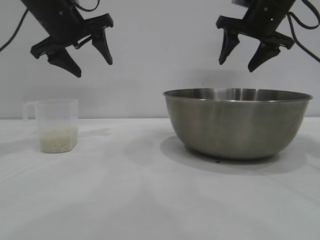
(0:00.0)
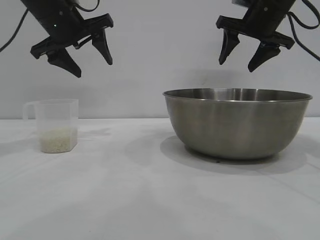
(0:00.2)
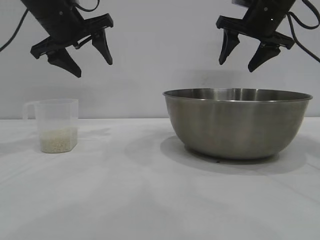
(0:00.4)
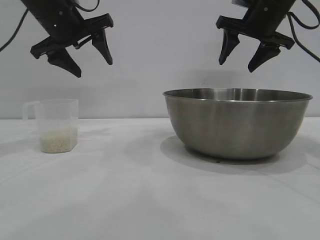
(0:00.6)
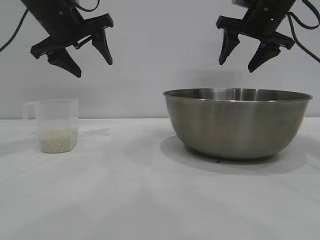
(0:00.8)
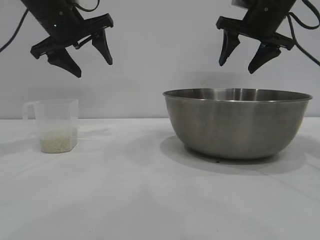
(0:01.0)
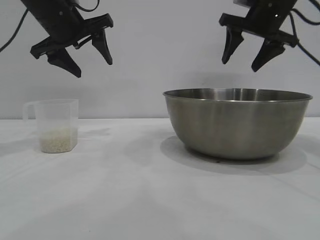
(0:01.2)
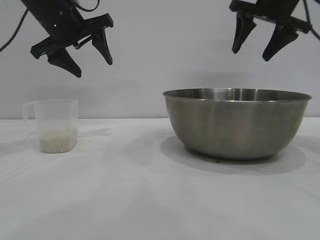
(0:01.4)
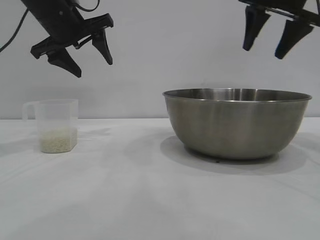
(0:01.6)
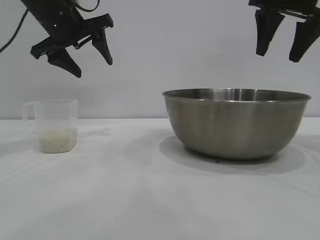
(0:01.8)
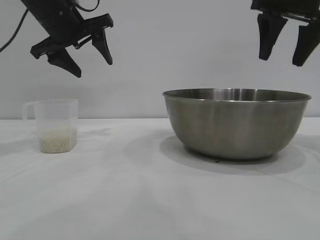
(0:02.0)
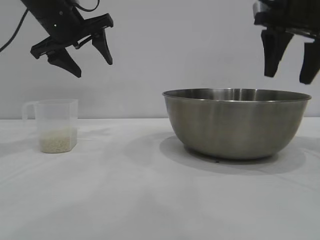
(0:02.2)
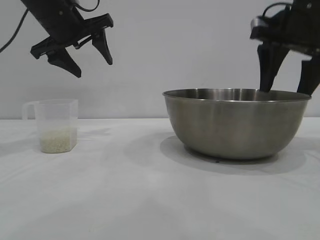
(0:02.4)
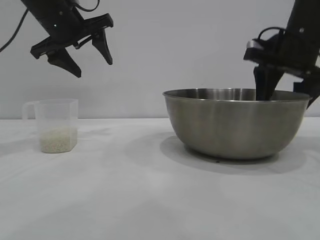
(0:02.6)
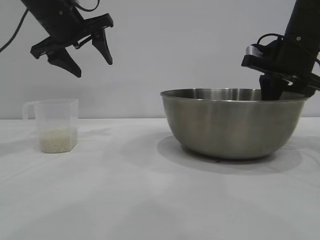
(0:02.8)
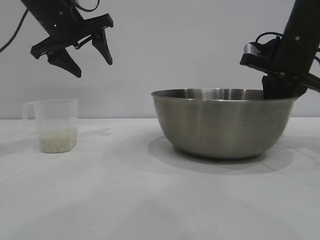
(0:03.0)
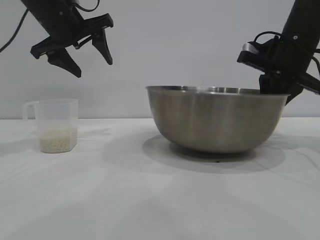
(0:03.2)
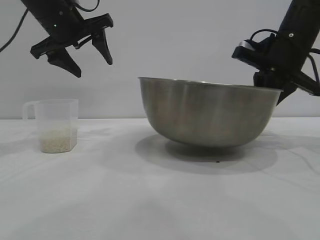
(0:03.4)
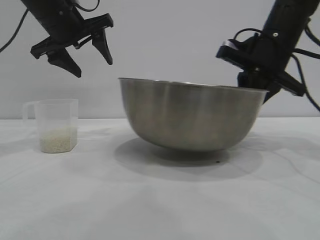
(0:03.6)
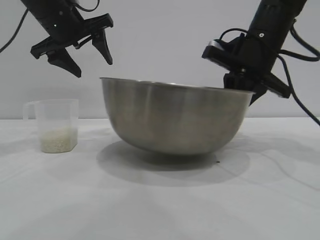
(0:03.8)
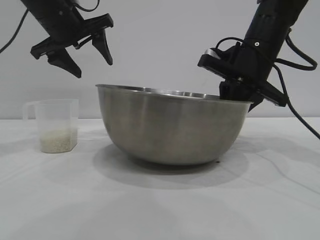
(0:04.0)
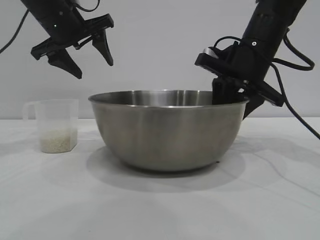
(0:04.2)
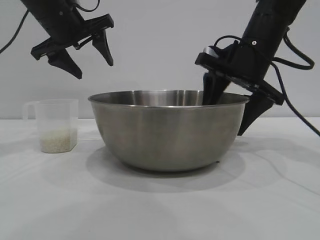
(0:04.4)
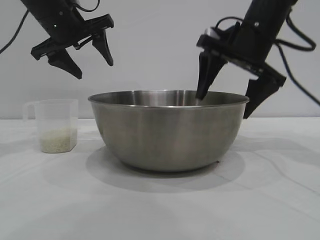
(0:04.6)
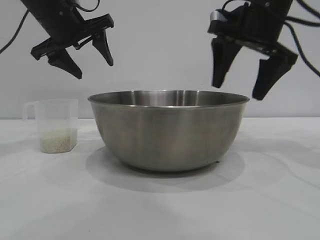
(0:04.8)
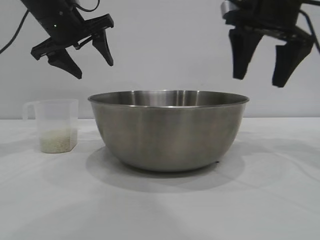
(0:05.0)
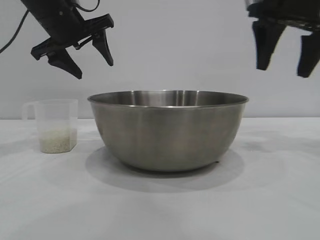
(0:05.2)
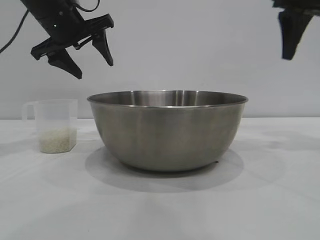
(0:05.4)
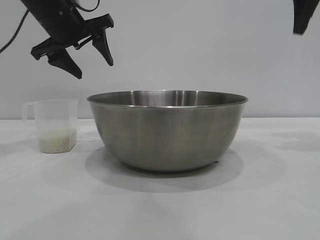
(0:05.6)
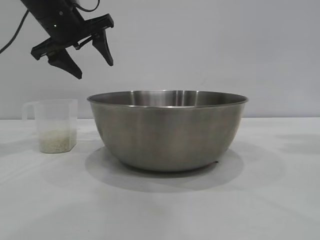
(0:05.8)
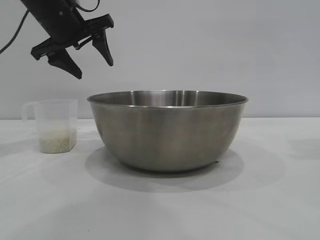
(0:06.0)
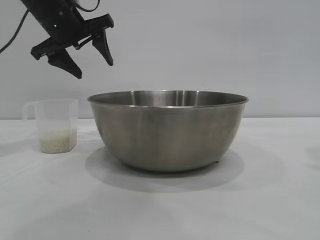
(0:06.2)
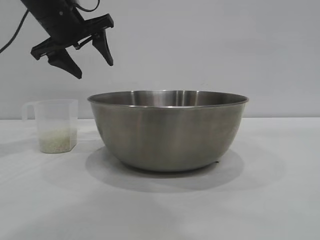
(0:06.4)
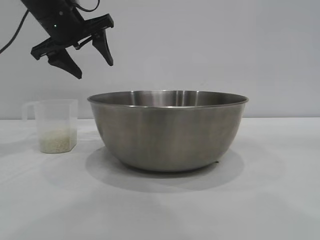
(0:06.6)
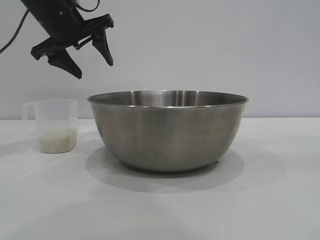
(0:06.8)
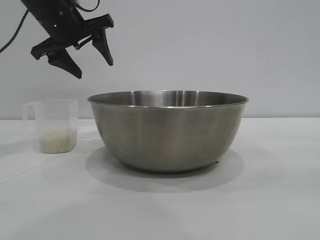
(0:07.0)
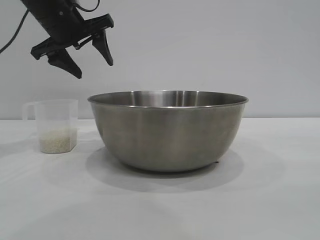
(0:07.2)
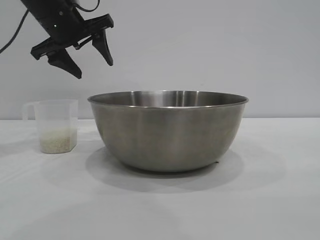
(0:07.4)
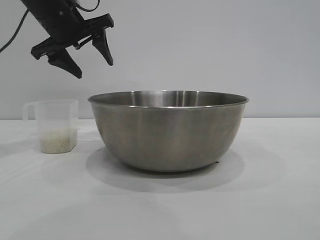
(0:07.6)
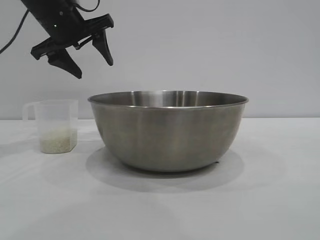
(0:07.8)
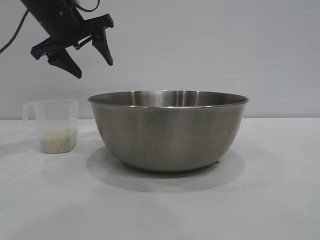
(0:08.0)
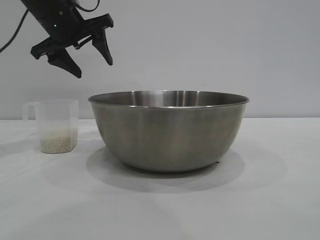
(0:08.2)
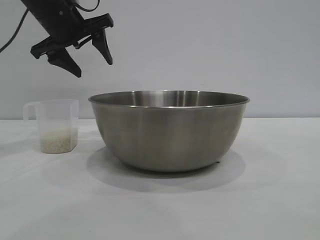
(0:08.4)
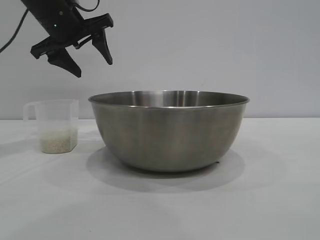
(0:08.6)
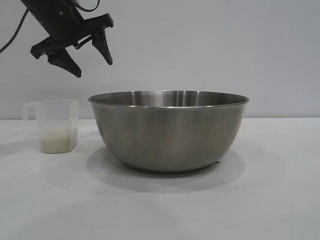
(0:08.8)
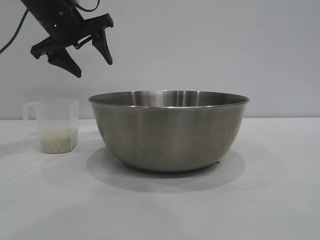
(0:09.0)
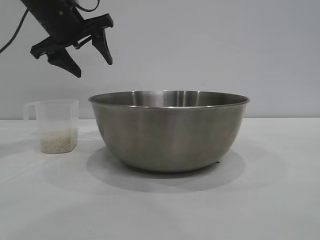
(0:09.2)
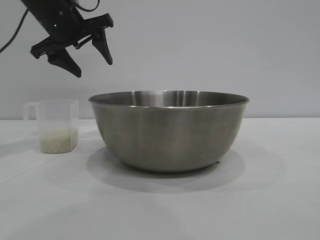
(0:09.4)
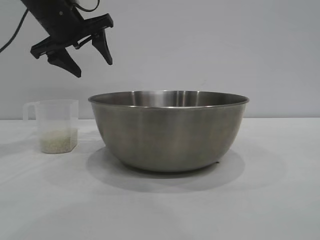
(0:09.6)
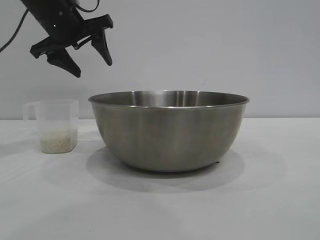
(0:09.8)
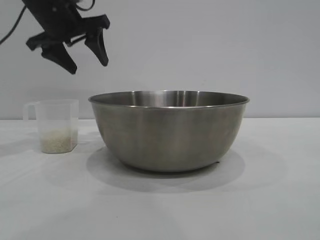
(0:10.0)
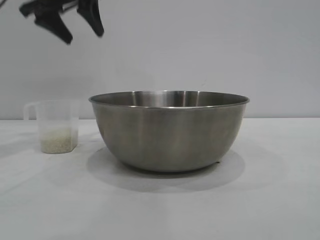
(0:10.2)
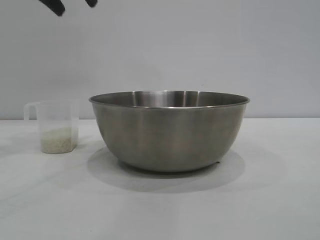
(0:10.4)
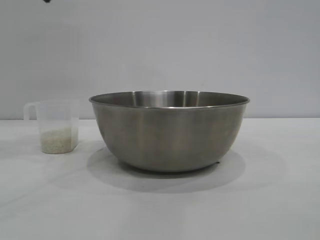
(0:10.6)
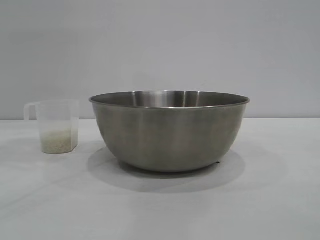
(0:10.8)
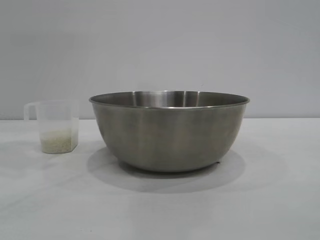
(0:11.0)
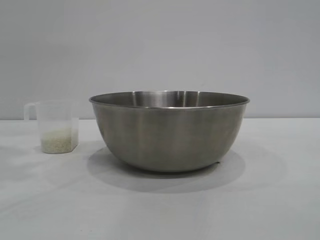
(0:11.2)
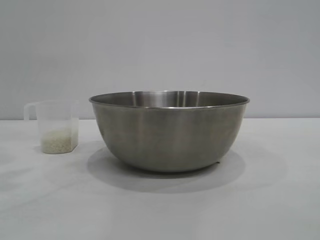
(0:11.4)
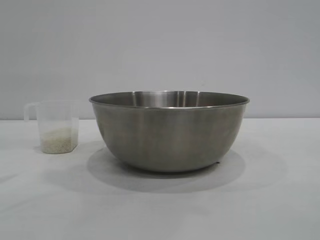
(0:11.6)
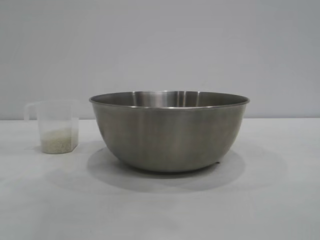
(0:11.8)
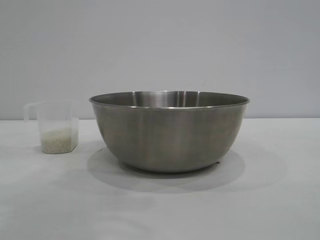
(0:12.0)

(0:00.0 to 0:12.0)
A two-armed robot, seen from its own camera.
Task of the whole recording: the right gripper grasp the rice container and place it in the center of the table, the left gripper grasp the rice scoop and pour the rice into the rice container.
Step, 0:00.0 - 0:04.8: Move the bowl to the center of view with the right gripper.

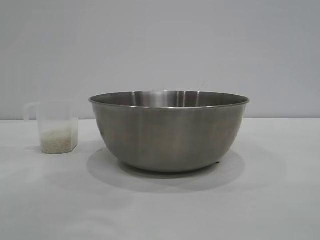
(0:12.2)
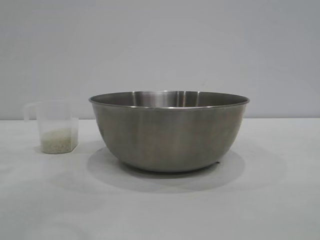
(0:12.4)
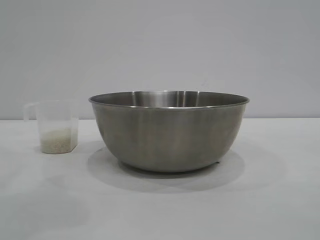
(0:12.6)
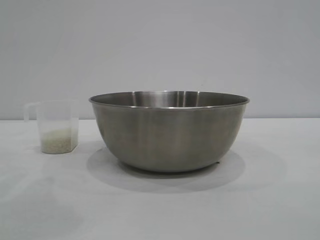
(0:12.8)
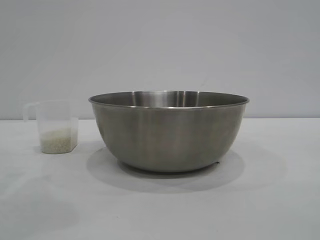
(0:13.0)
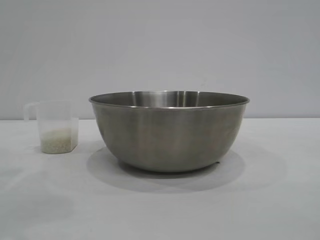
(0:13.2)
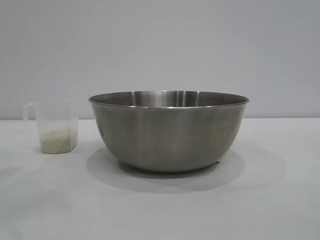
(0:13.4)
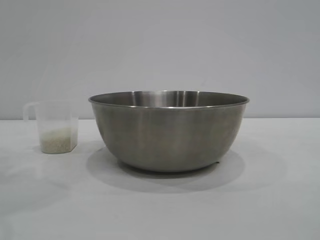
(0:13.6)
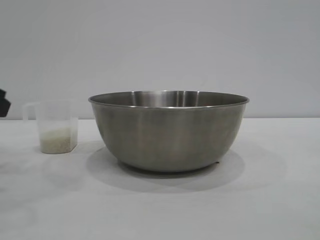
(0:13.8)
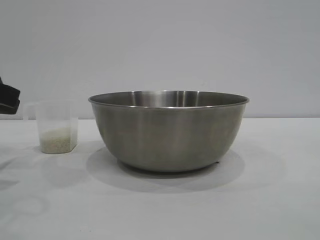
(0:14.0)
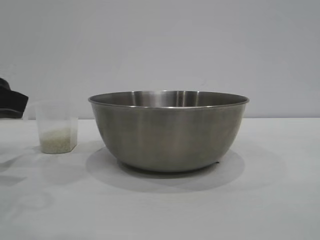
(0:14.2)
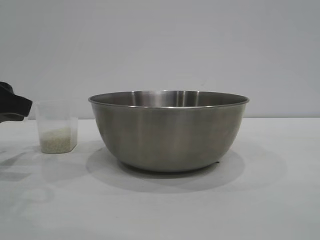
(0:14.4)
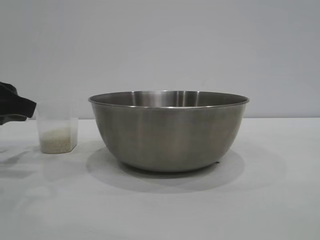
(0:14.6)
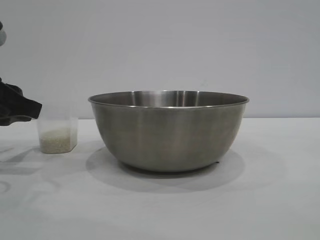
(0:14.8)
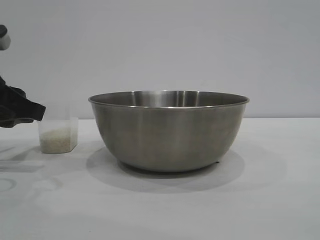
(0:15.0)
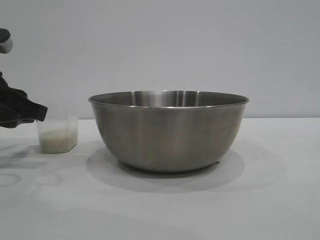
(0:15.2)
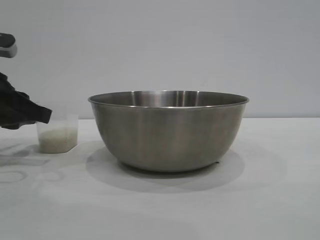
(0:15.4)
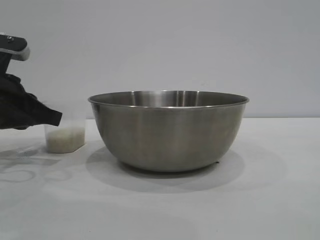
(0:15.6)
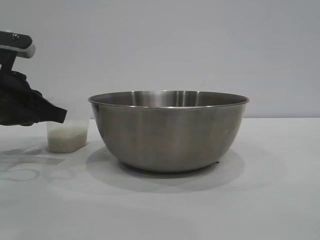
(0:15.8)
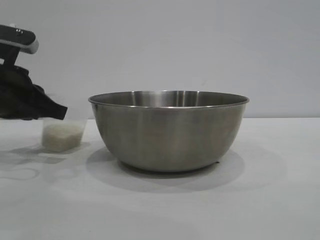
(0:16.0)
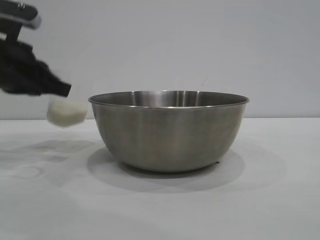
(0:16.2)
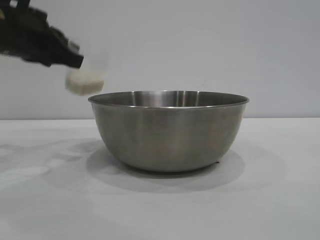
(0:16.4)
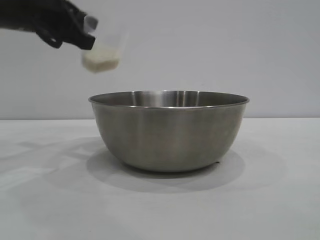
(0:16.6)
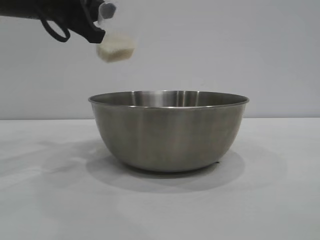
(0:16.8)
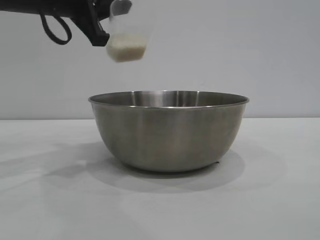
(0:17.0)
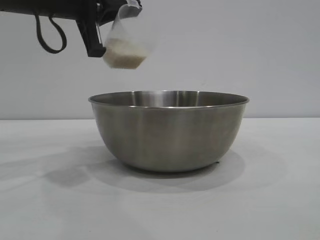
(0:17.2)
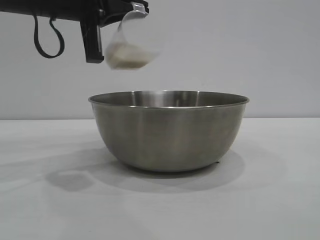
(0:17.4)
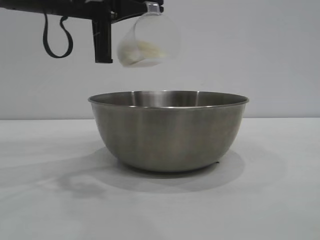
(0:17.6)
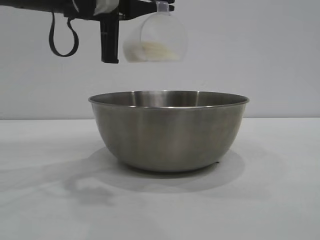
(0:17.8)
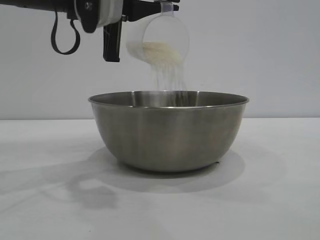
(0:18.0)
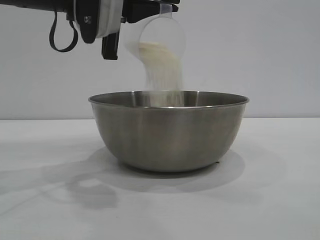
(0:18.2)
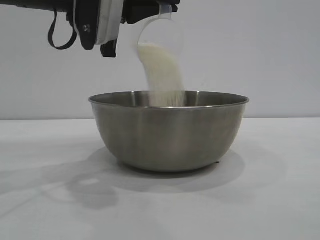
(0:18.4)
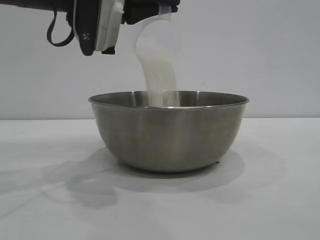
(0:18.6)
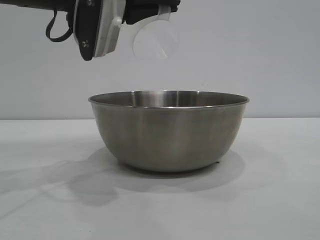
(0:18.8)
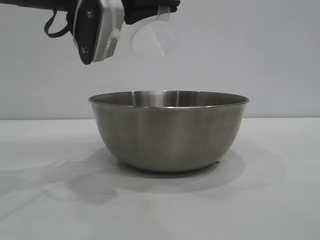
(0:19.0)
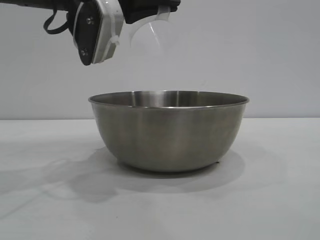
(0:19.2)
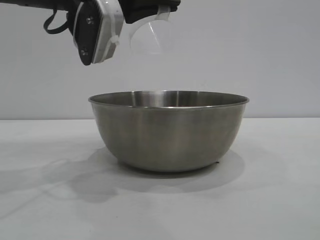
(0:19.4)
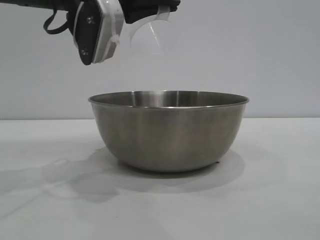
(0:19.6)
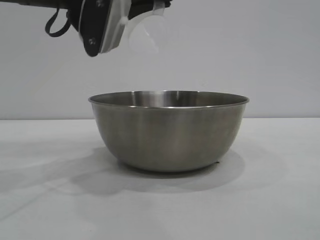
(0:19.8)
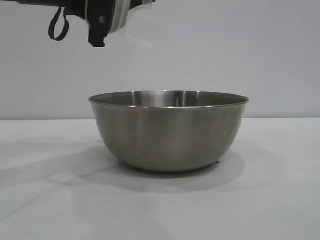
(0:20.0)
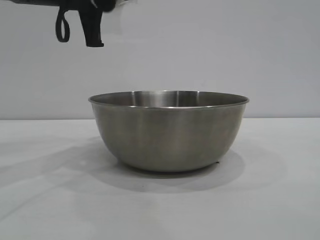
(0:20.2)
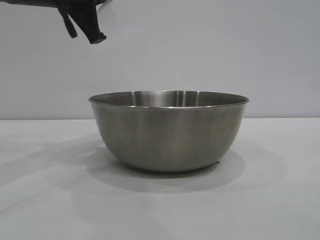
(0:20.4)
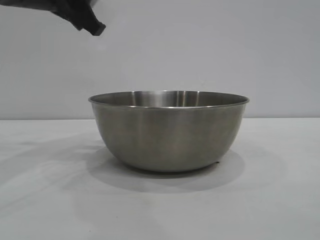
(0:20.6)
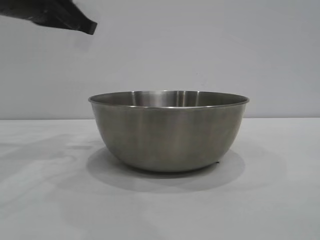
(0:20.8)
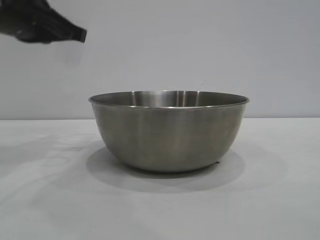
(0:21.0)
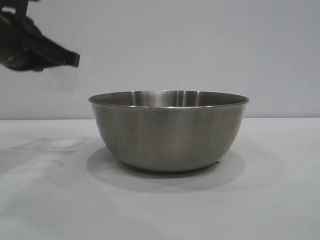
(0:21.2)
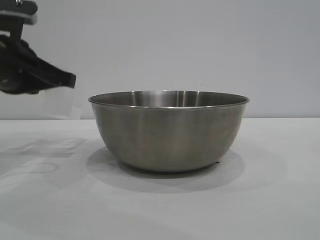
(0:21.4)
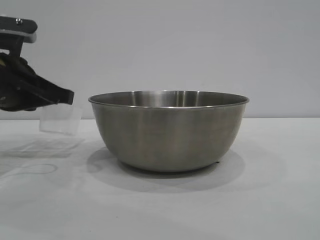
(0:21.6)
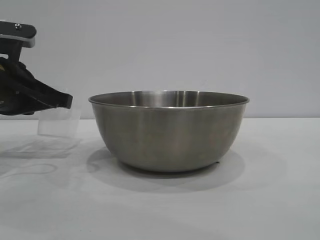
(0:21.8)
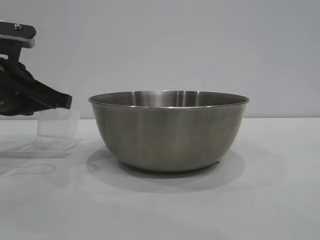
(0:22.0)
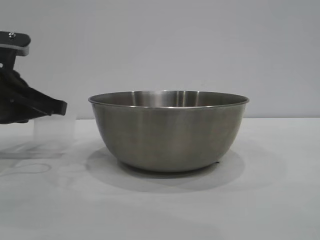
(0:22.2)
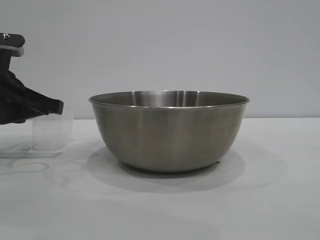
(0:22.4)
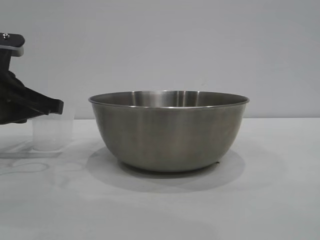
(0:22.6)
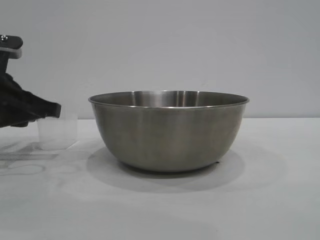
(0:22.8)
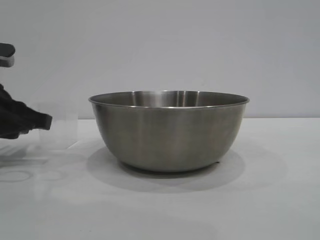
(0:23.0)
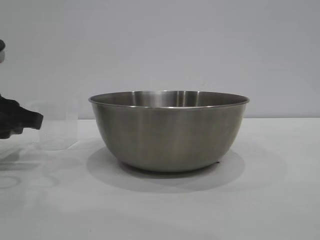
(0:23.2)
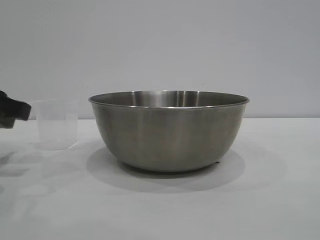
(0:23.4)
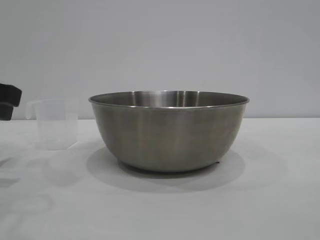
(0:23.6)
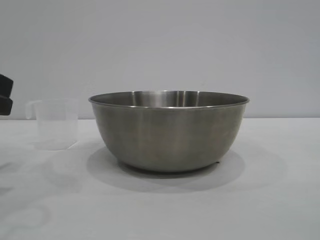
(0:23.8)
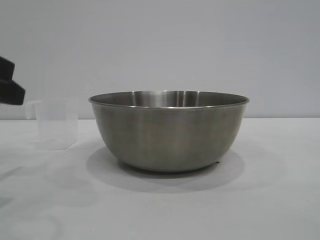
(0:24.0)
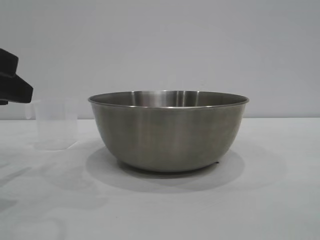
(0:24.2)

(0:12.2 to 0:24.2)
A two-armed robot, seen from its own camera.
Task of the whole recording: the right gripper grasp the rice container and place it in the center of the table, the left gripper grasp the rice scoop and pour the rice into the rice container.
Step, 0:12.2 - 0:16.2: Pick up the cup with rice in it with the left gripper.
Step, 0:16.4 - 0:20.0: Pour the rice from the cup into the bowl with the left gripper.
Step, 0:20.2 - 0:23.4: Place the cup on the table with the left gripper.
